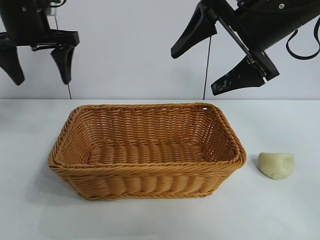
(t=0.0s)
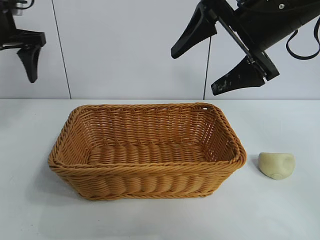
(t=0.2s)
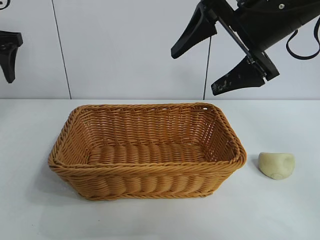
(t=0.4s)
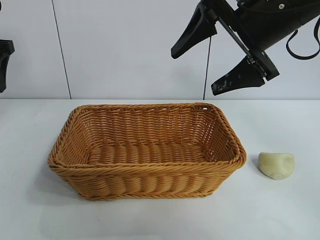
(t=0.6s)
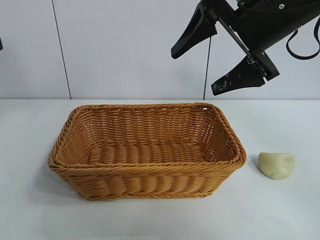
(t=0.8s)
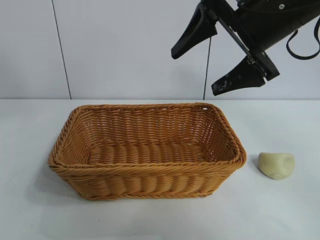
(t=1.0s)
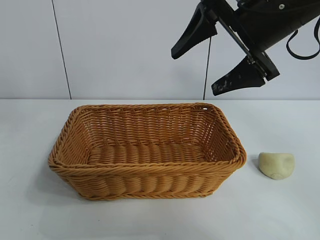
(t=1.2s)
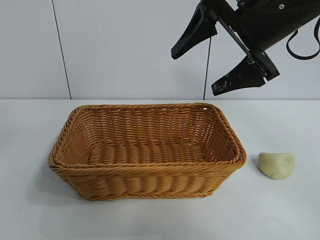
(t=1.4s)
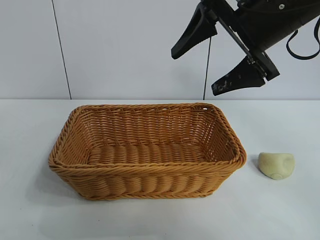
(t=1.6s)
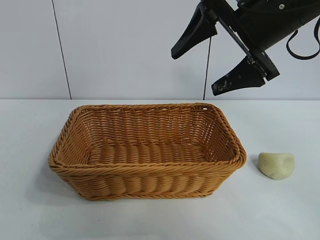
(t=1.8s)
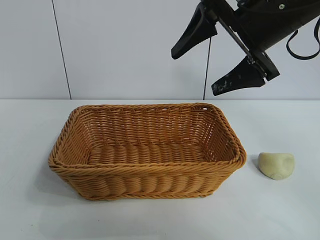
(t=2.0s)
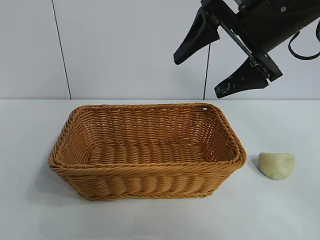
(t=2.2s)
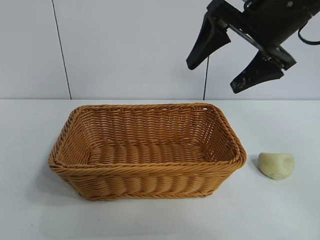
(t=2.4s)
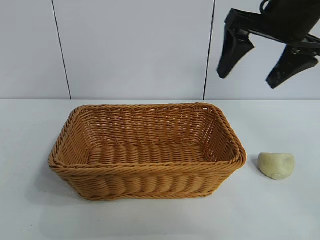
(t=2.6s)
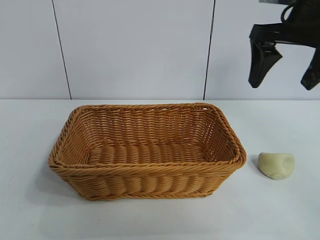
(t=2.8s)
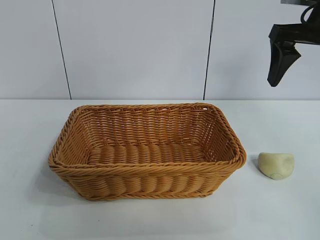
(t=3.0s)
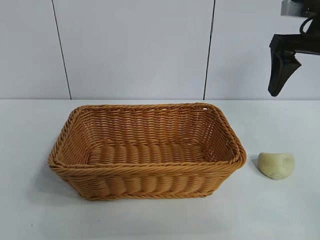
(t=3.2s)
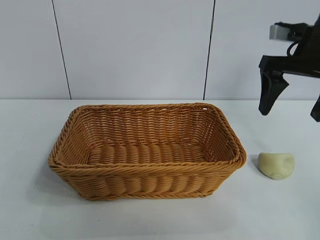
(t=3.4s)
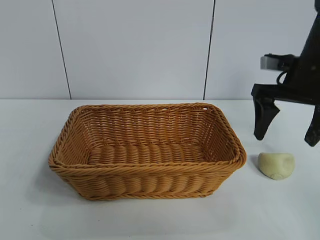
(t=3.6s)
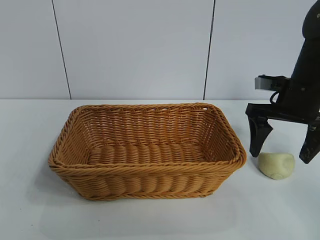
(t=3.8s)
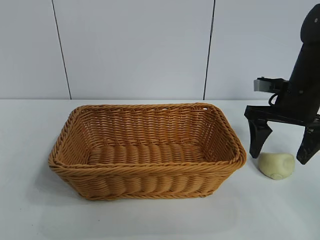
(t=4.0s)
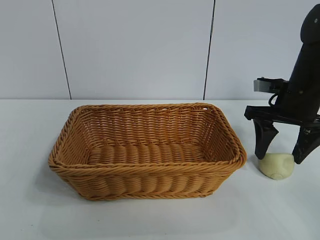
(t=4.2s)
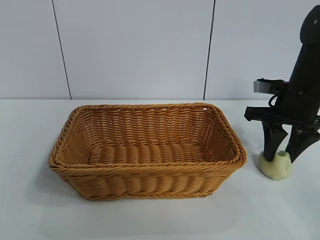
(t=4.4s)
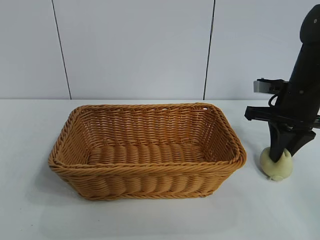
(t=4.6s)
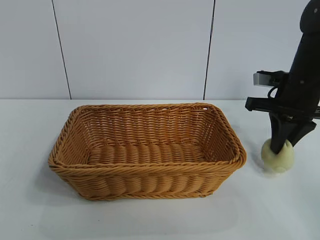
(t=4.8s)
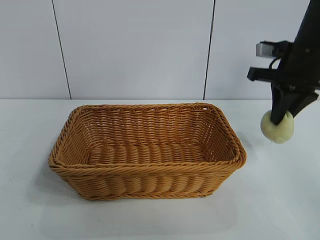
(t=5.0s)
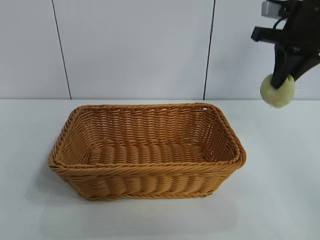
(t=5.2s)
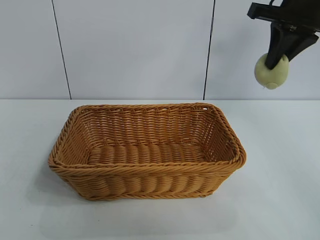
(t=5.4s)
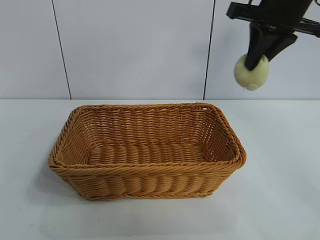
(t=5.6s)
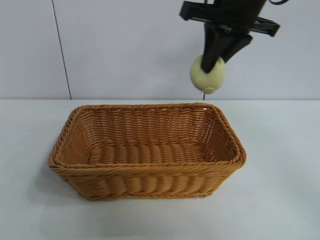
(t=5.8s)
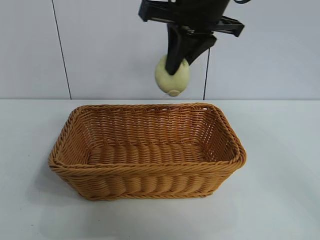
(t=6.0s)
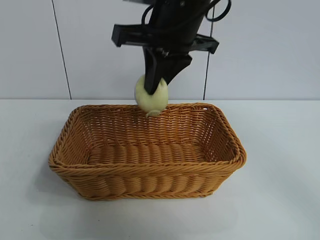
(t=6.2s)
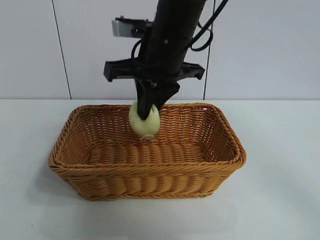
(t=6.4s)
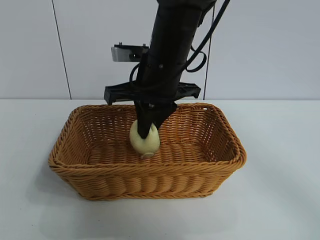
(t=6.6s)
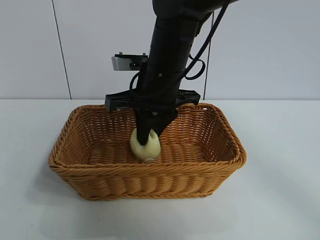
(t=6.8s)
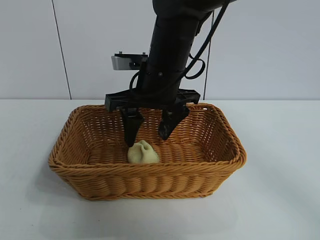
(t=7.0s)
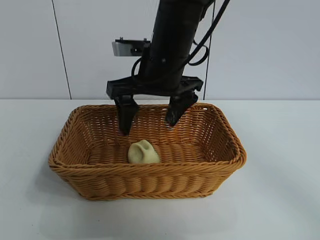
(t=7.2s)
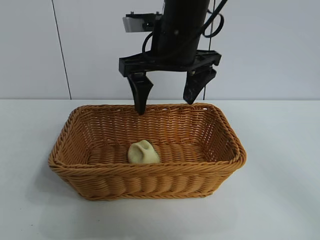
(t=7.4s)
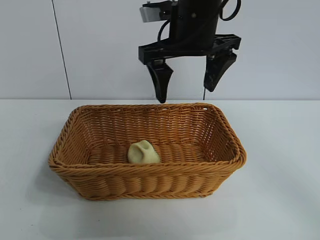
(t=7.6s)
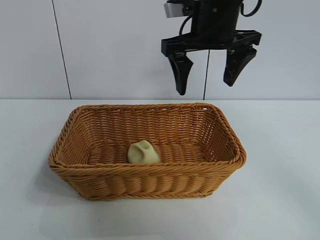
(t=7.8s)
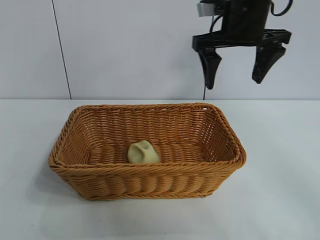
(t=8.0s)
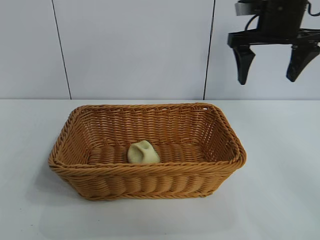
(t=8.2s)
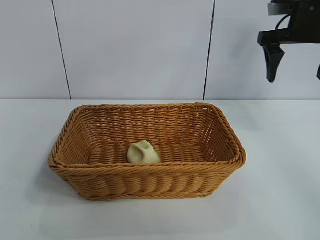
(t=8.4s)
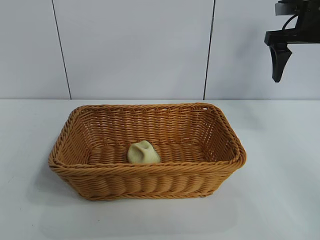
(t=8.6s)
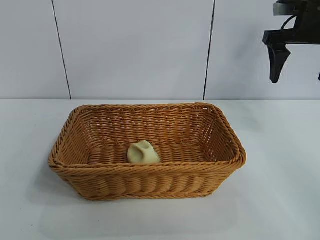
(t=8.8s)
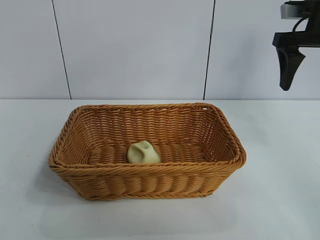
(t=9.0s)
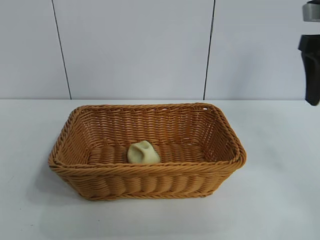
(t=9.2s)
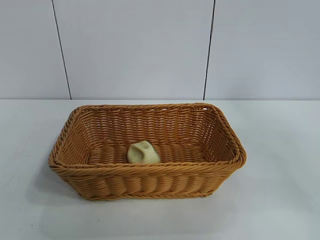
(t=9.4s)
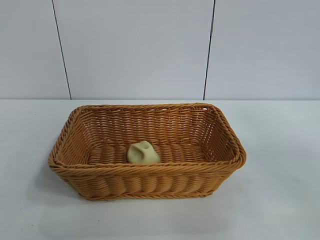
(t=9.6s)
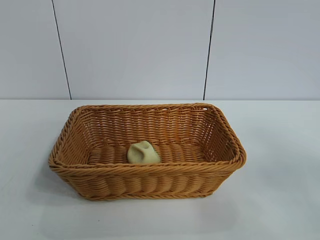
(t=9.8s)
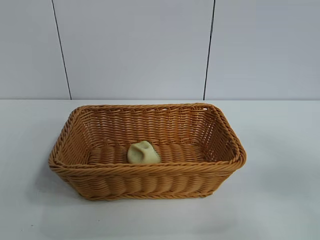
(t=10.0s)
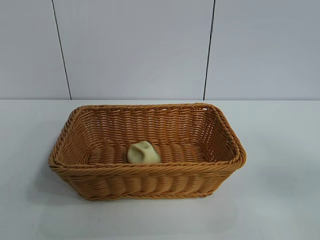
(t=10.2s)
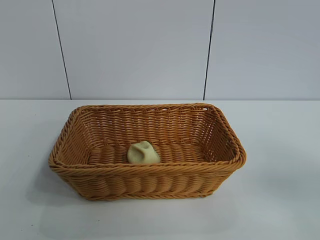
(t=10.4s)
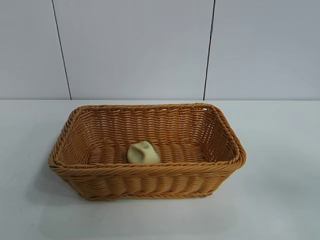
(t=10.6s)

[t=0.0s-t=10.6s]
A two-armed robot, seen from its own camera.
Task of the whole recording: pick up the egg yolk pastry and put it into the basket.
Step, t=0.0s to t=4.4s: Grasp egg yolk pastry with right gripper.
Step, t=4.6s to t=6.8s: Place the egg yolk pastry in the basket with right gripper.

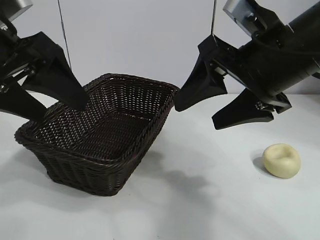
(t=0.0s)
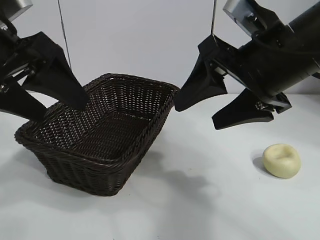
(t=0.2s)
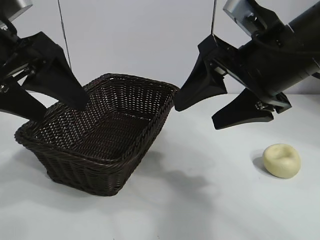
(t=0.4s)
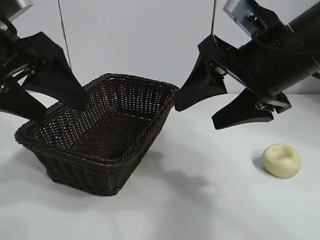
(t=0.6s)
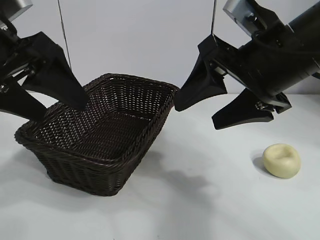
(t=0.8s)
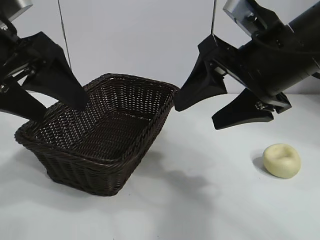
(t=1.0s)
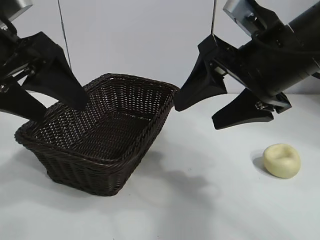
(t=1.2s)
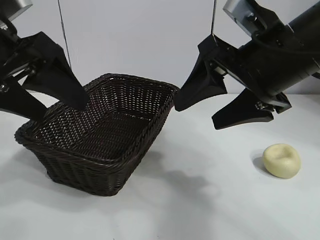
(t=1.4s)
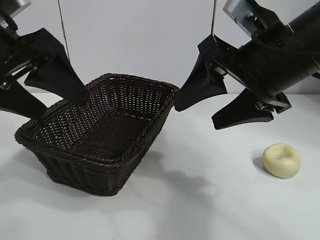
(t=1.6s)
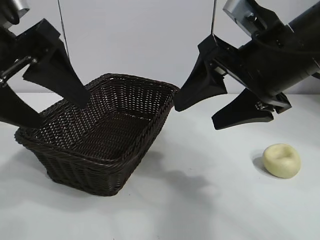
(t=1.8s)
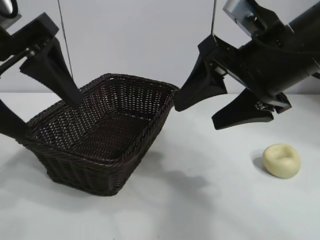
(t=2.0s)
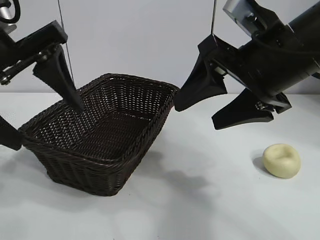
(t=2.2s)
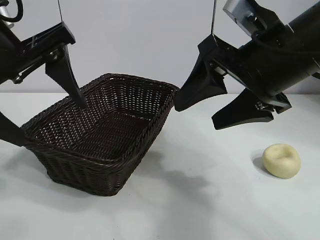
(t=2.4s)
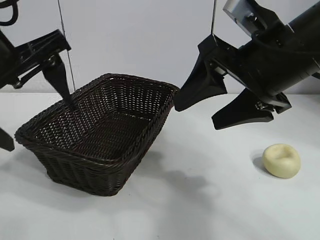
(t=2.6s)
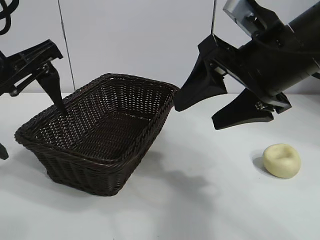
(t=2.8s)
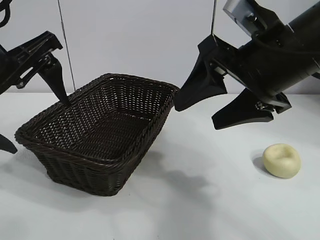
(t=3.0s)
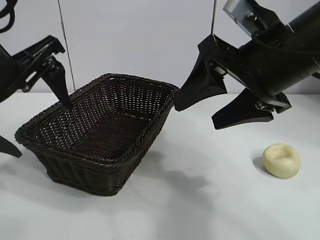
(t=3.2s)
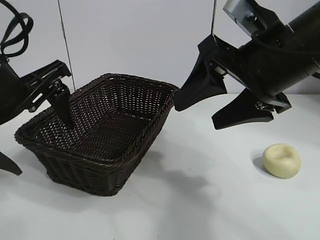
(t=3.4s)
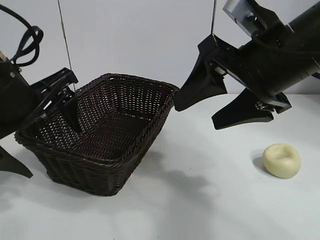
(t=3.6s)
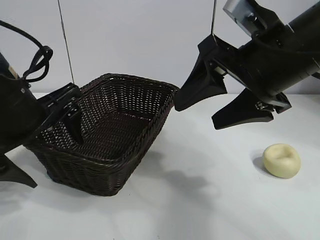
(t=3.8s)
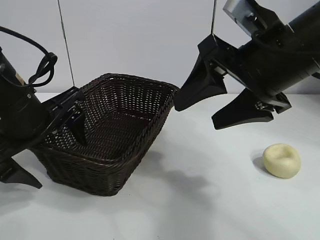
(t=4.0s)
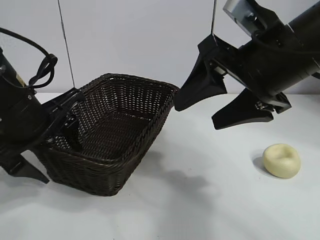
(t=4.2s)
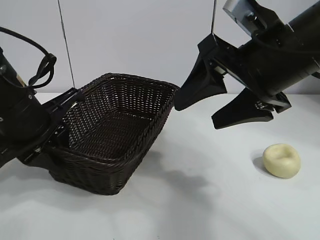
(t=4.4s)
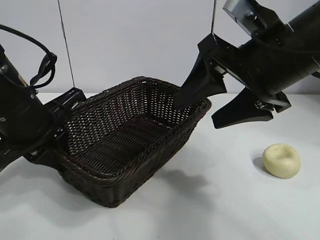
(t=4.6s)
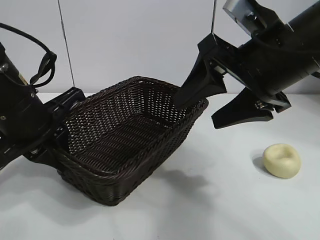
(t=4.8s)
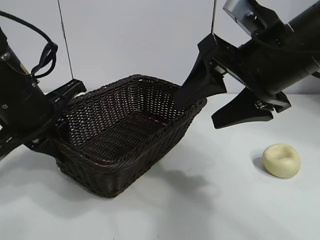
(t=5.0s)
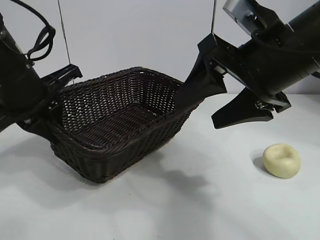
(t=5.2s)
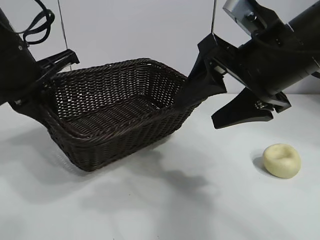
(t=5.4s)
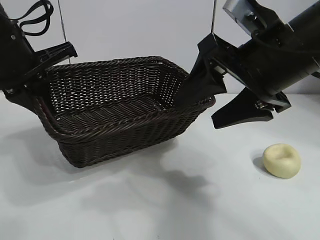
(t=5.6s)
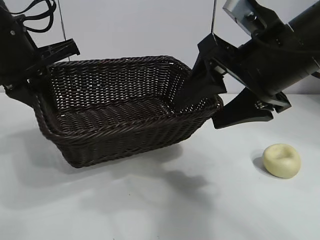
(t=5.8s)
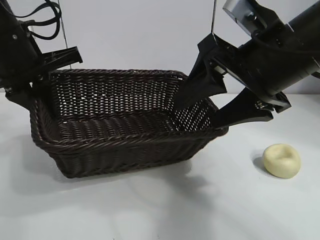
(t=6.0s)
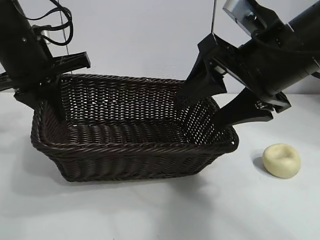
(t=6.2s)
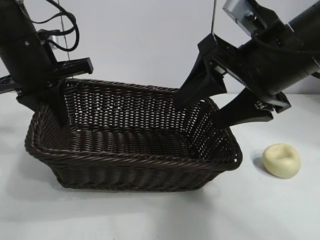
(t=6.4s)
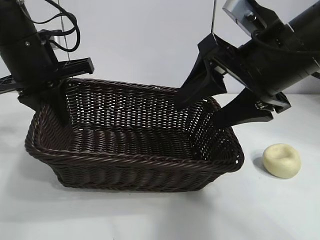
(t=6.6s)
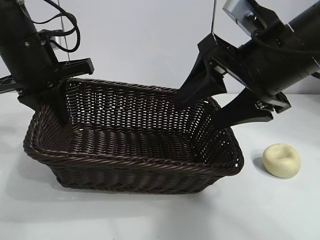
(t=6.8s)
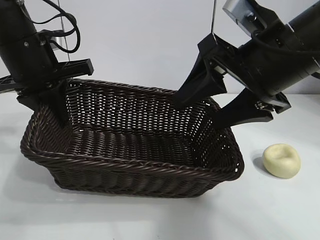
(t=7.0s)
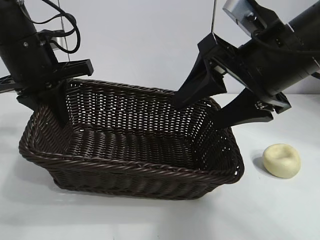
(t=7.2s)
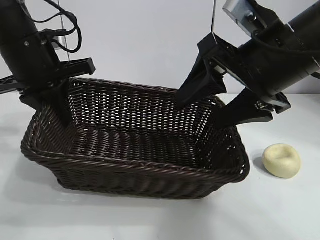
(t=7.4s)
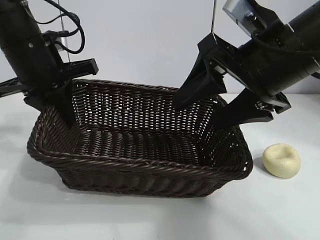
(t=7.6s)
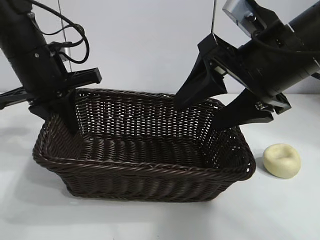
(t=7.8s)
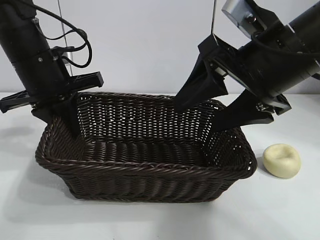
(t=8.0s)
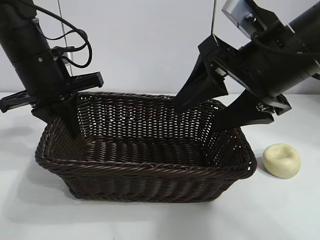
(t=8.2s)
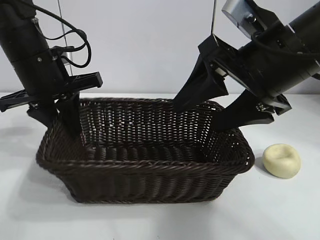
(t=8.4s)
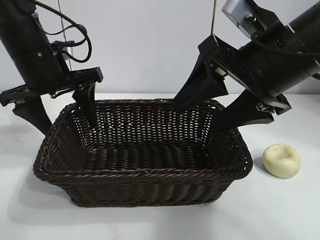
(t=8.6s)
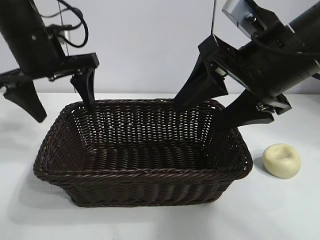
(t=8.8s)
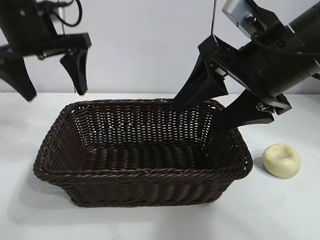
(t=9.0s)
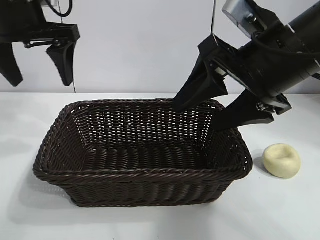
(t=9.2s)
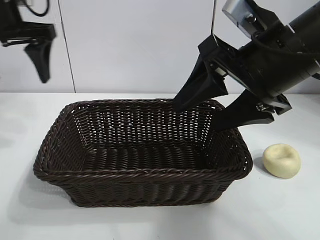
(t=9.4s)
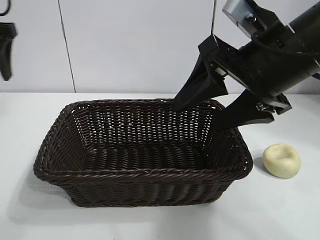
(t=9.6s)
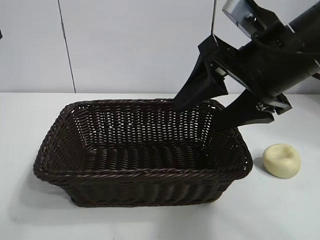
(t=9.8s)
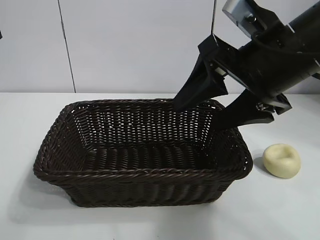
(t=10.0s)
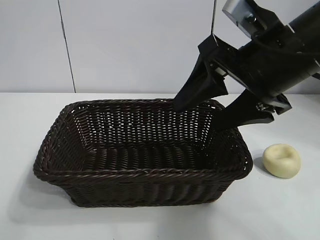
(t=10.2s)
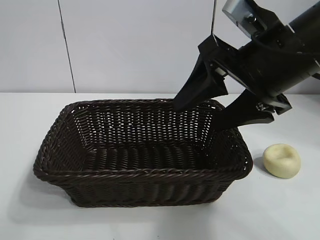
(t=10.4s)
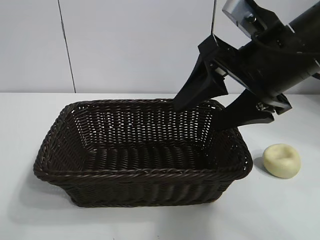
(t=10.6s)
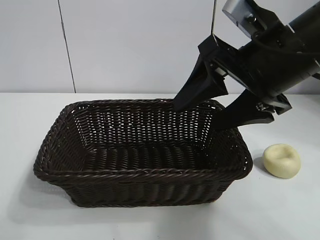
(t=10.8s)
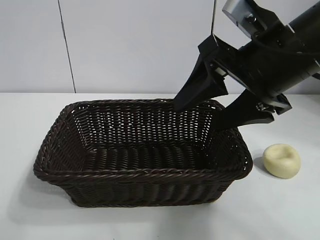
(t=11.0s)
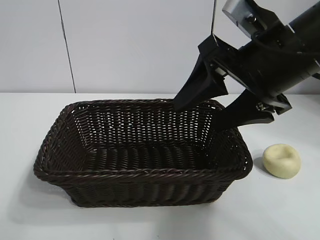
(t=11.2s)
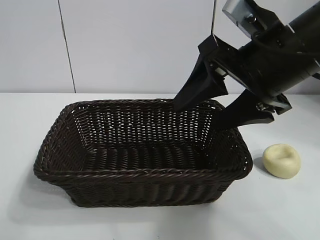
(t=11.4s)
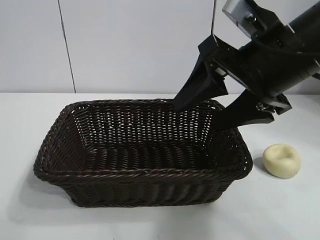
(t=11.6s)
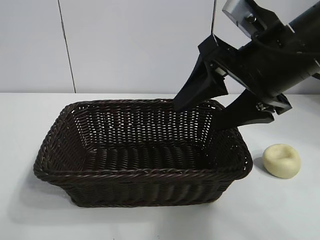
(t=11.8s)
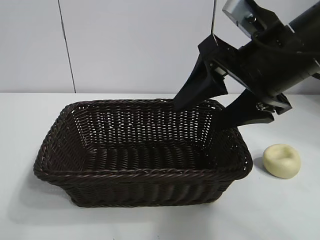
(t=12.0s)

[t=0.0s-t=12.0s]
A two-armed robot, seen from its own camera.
Task of the whole recording: pick up the egg yolk pastry and put it into the basket.
Step, t=1.4s to t=4.4s: Grasp the basket with left gripper.
Step, t=4.6s to t=8.6s: Place the basket in the center of view with left gripper.
